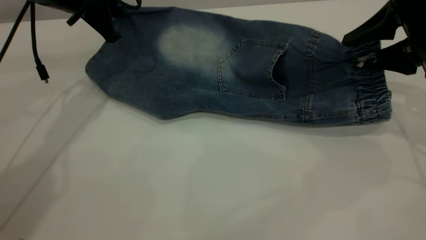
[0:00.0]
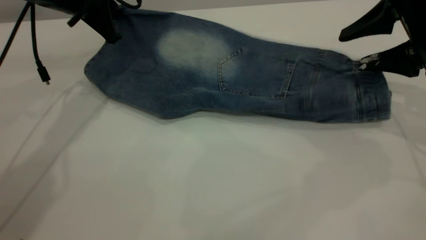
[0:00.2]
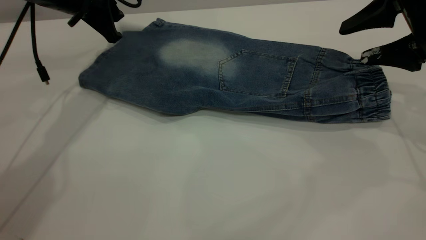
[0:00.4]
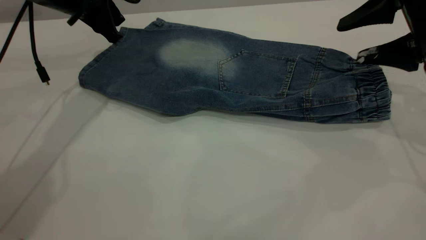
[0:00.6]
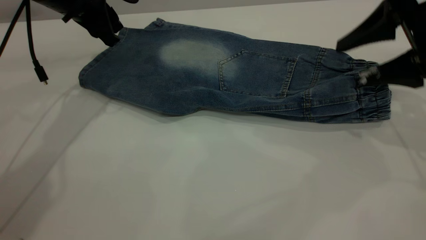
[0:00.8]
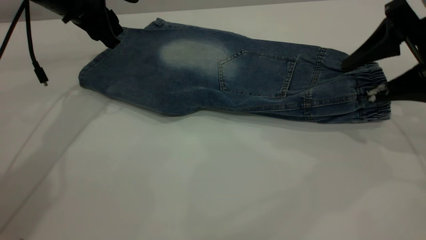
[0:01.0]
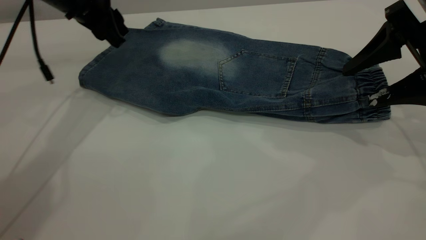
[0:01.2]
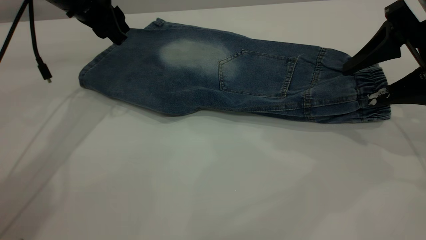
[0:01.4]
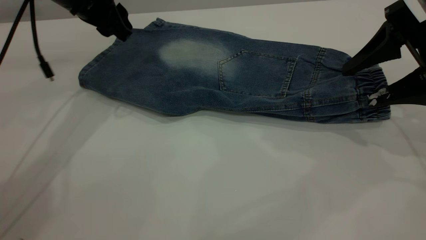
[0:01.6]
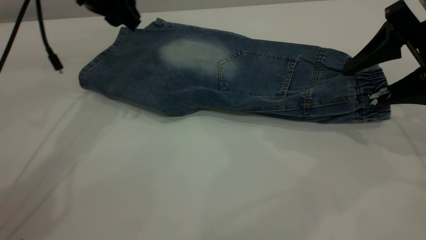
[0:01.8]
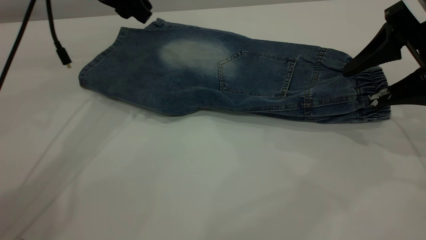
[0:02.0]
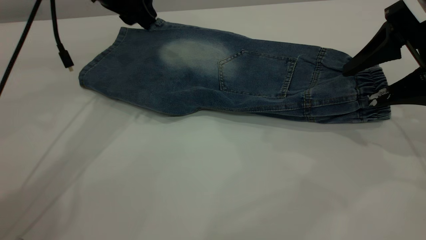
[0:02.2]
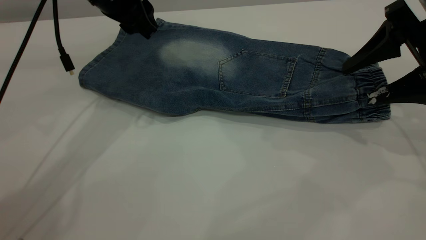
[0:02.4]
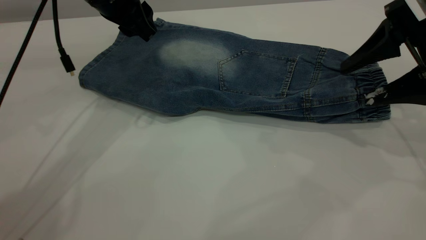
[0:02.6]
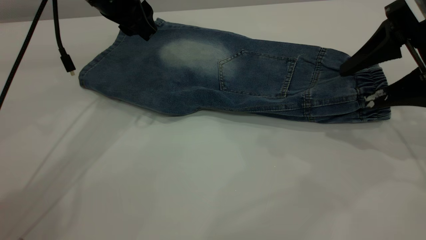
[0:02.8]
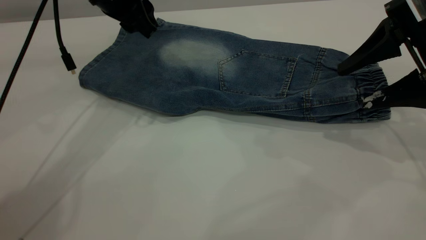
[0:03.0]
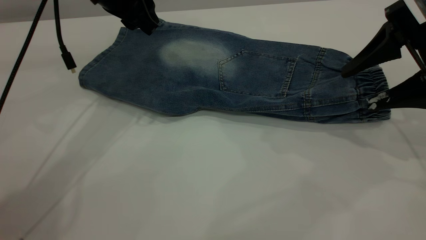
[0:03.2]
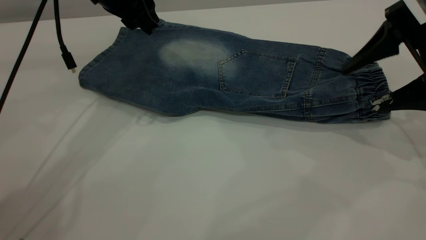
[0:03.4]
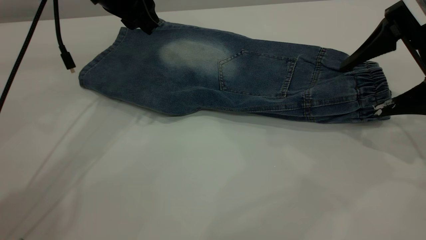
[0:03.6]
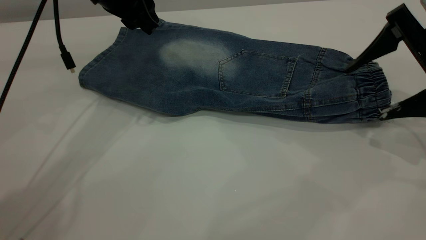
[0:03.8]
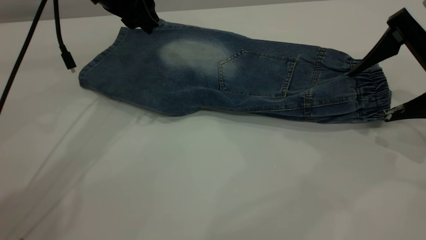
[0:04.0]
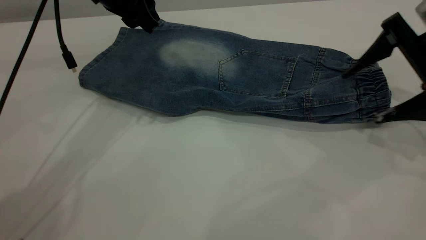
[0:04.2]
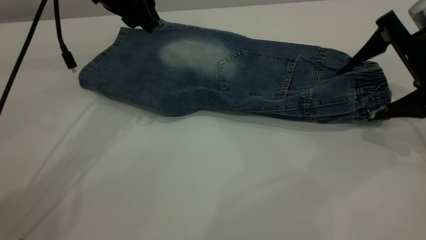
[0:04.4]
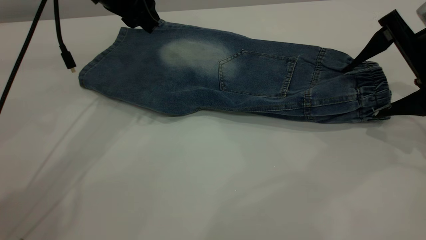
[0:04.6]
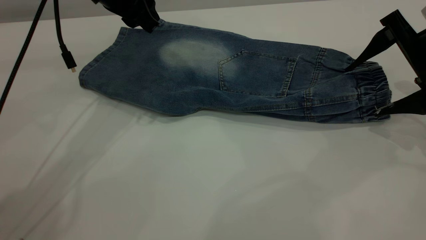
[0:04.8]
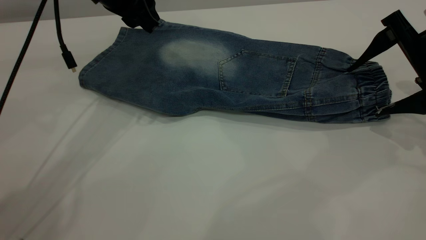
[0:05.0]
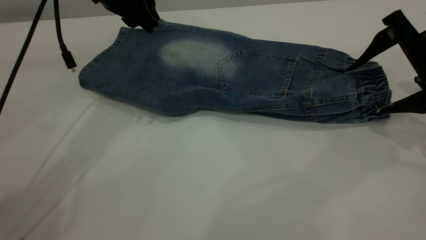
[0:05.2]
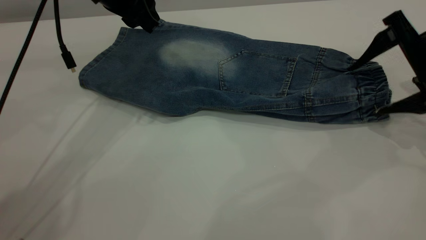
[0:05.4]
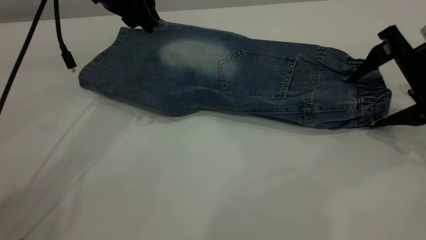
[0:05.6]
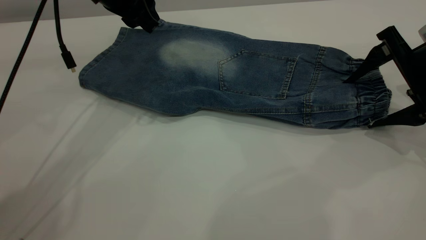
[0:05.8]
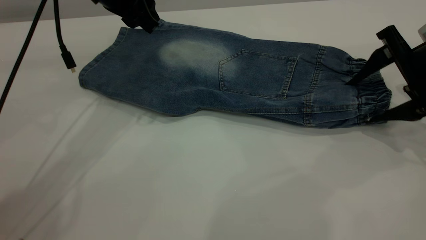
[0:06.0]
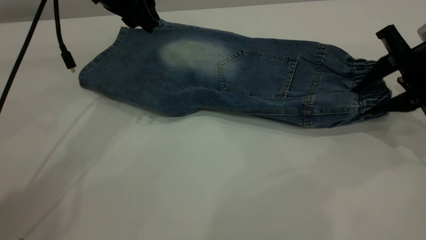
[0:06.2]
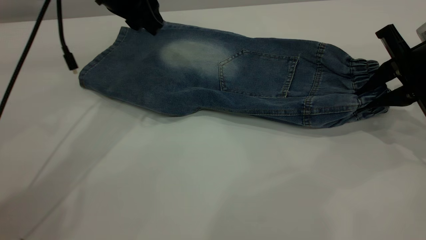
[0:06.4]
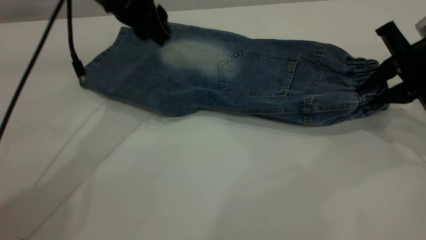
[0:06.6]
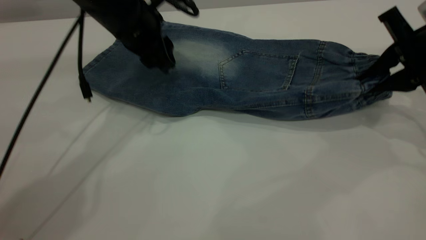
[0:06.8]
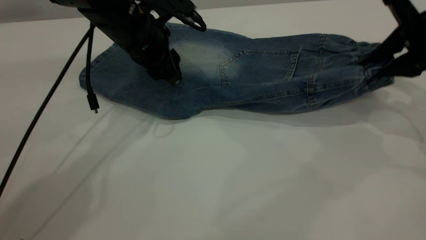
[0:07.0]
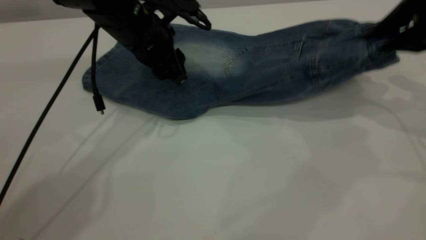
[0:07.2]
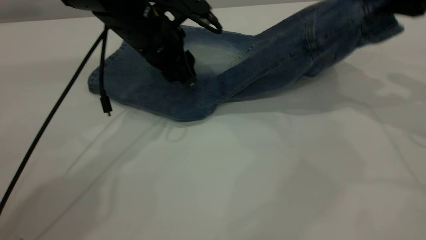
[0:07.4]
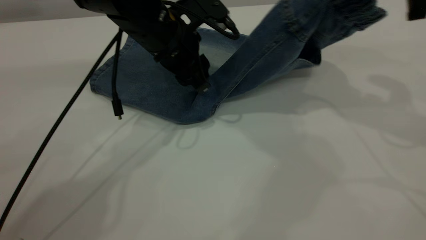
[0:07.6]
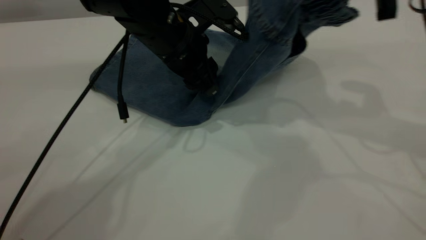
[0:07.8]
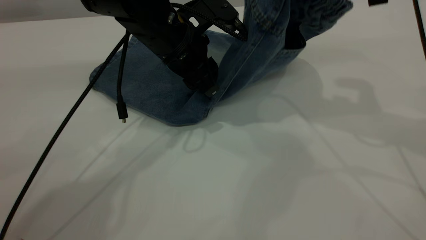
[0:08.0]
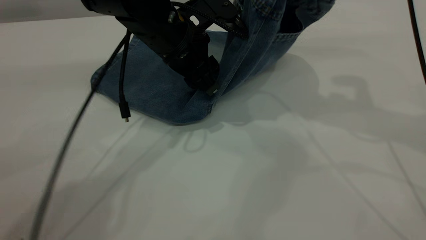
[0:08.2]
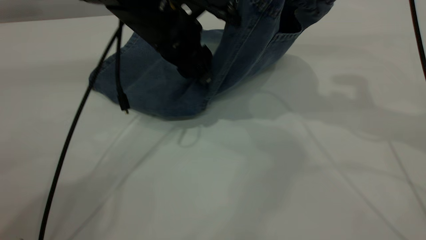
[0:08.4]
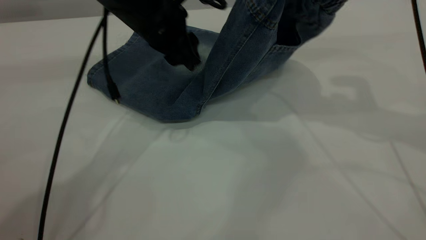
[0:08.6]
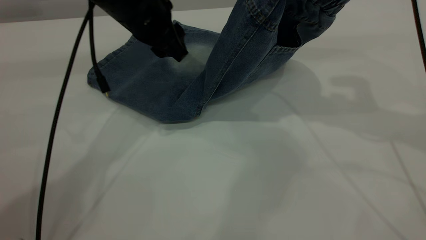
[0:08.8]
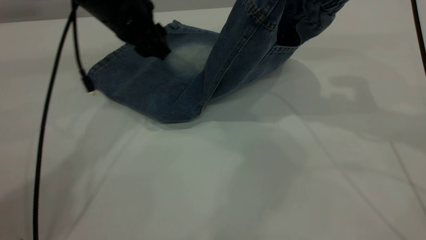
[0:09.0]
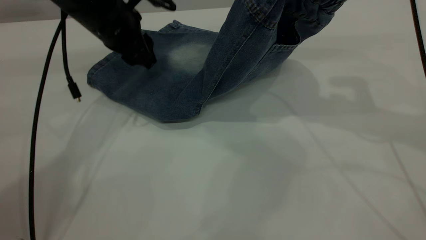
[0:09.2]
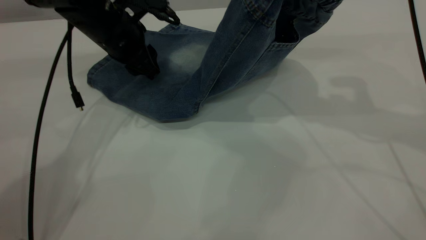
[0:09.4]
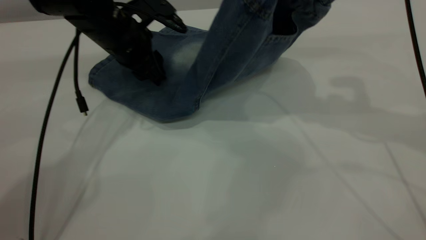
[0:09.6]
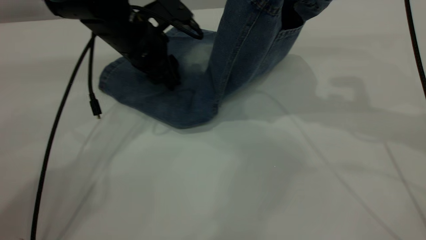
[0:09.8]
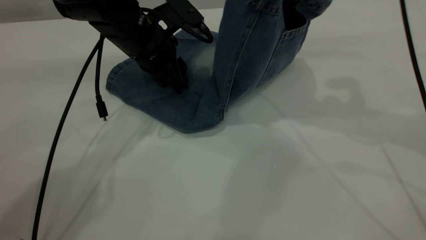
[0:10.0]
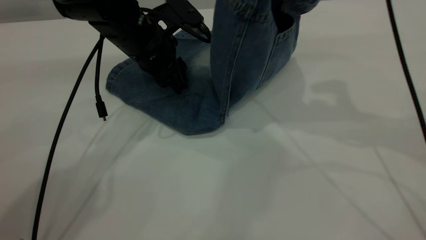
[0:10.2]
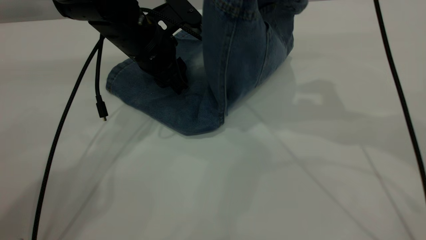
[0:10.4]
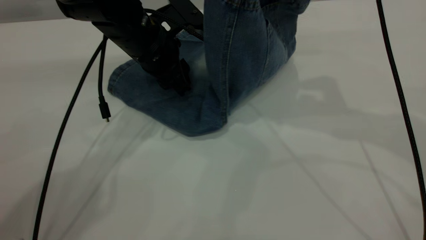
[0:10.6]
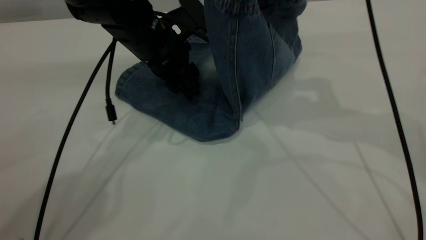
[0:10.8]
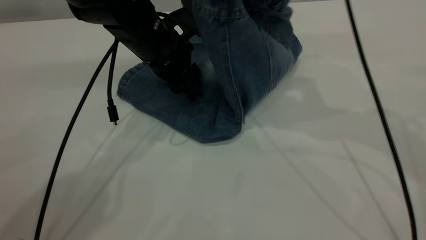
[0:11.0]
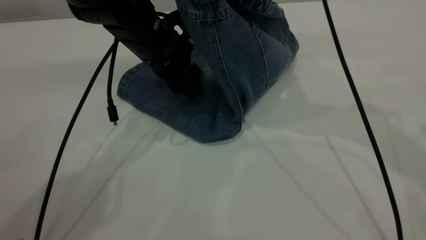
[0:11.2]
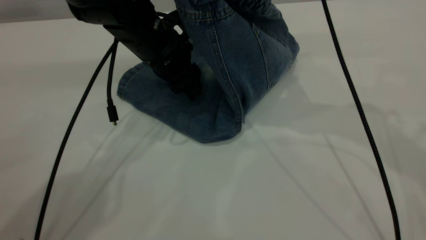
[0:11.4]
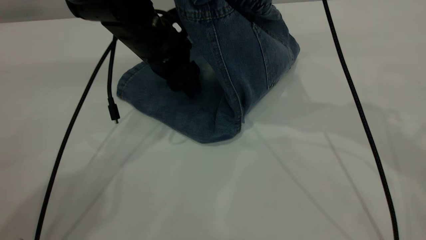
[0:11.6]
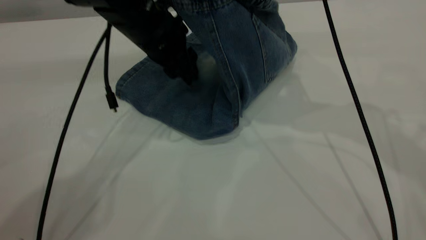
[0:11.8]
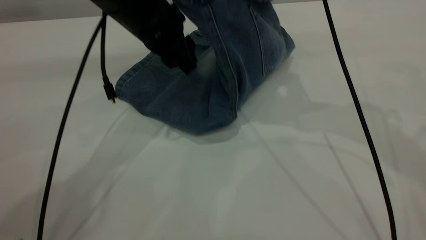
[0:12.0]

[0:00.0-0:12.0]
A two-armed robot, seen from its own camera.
0:00.0 to 0:01.6: The left gripper opens.
0:01.6 to 0:03.0: The grippers make only small movements.
0:03.0 to 0:04.4: The grippers stay close to where they were, moving slightly.
0:04.4 to 0:06.0: The right gripper closes.
0:06.0 to 0:07.6: The left gripper shifts about 10 cm to the right and downward. The right gripper moves upward and to the left, about 15 cm, and closes up.
0:07.6 to 0:09.0: The left gripper is displaced to the left by about 10 cm.
0:09.0 to 0:10.4: The left gripper moves some 5 cm.
0:10.4 to 0:12.0: The right gripper ends up some 5 cm from where it was; the left gripper shifts approximately 5 cm upward.

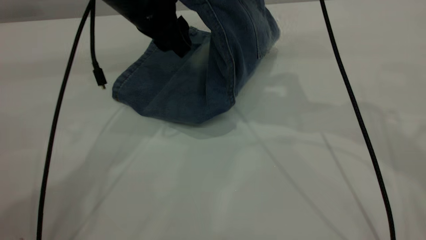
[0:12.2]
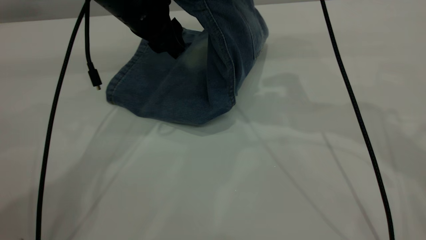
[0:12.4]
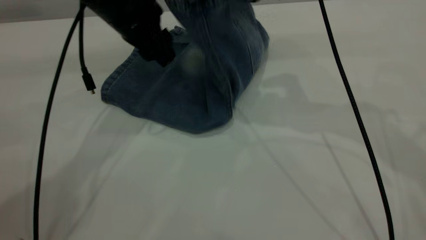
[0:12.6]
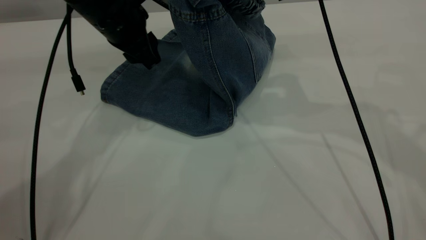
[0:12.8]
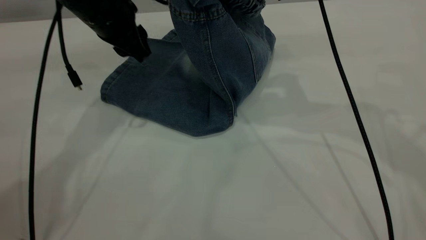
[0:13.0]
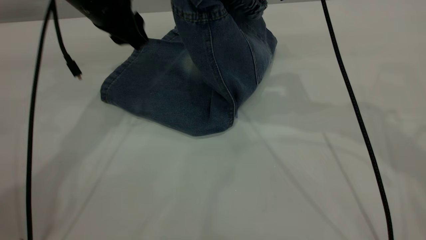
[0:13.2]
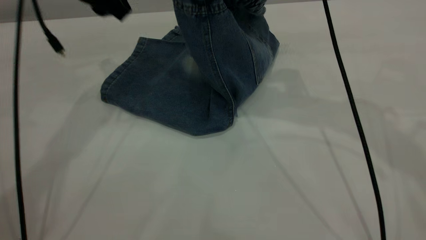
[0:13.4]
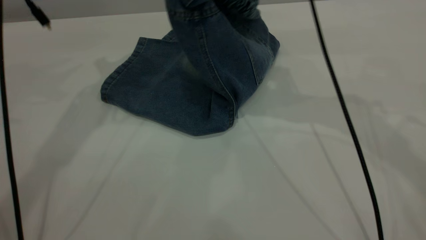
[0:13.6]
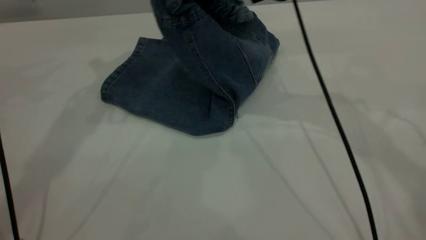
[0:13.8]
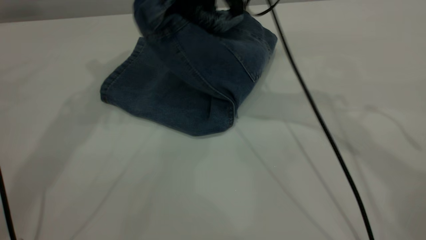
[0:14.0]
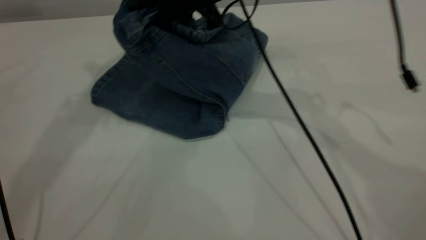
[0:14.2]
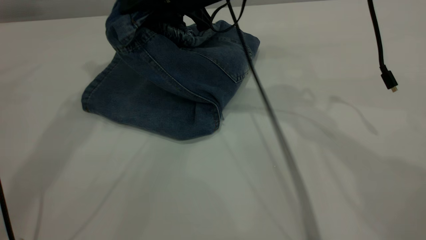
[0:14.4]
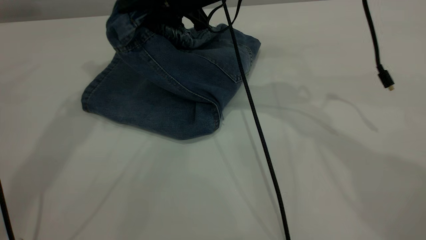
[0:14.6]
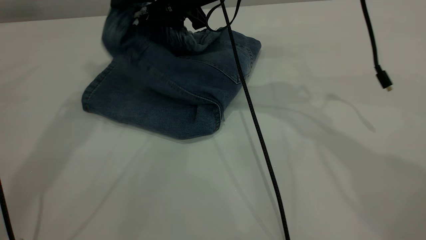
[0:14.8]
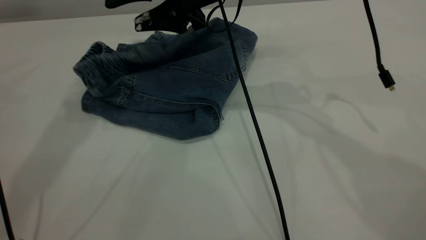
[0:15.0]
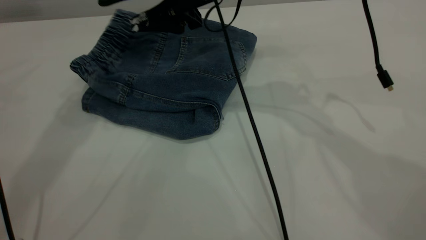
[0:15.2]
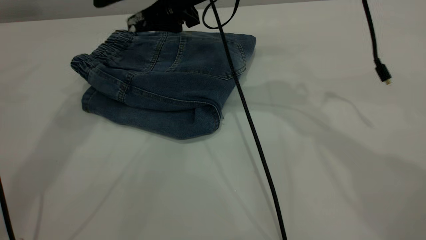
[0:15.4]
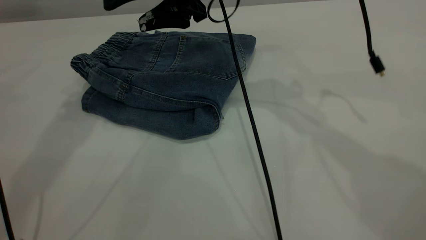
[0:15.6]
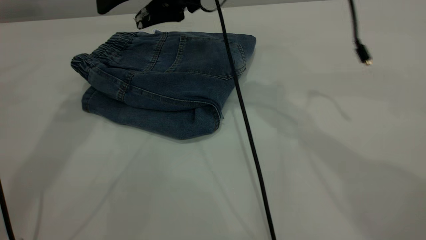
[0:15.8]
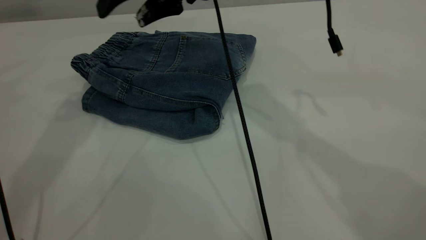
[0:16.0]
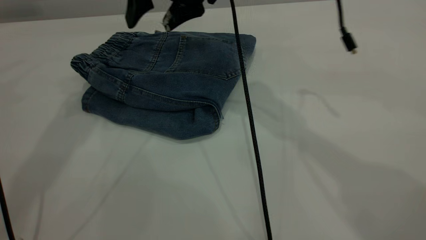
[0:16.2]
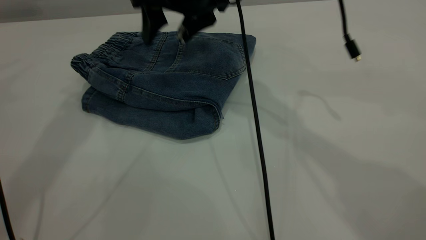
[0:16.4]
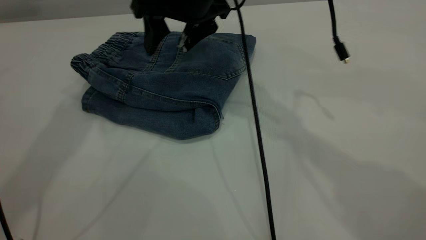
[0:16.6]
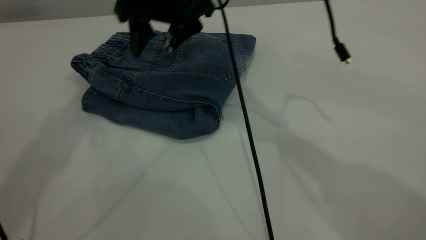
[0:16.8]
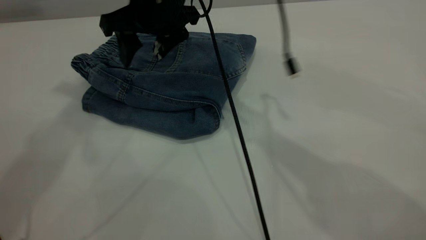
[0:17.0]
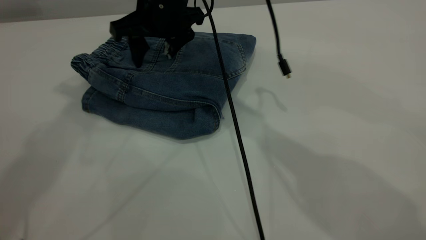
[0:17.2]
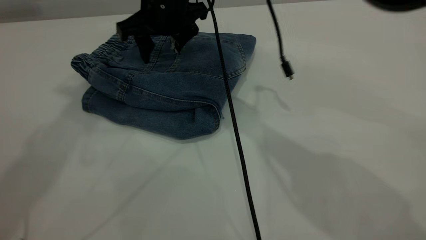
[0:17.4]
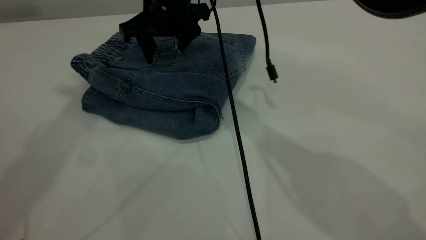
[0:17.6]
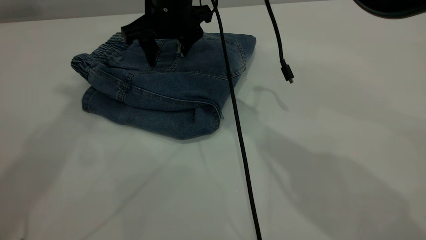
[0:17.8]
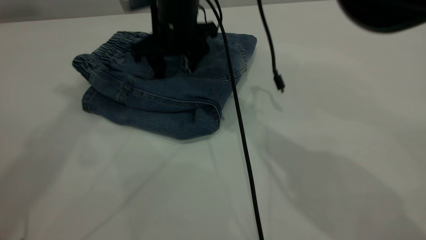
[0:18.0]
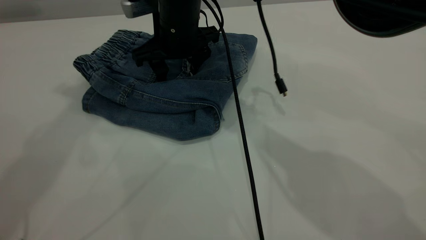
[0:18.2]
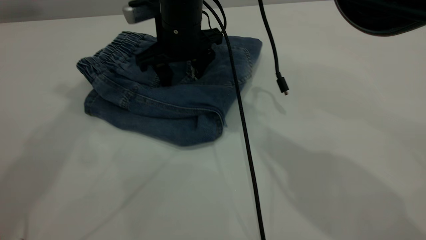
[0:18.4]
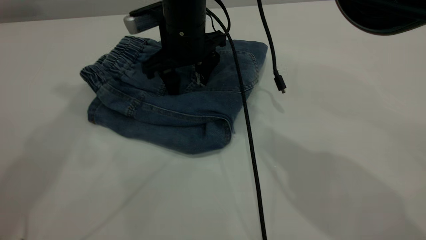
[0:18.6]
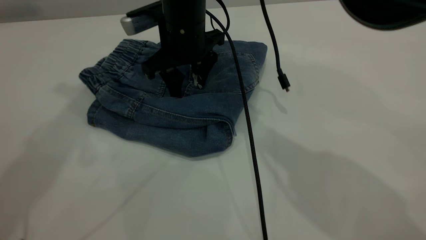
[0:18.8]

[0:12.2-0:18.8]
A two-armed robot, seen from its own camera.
Step, 0:12.2 to 0:15.8: Fold your pants from right to left.
0:12.2 to 0:13.8: The left gripper is displaced upward and to the left by roughly 15 cm.
0:13.8 to 0:15.4: The right gripper heads to the left, covering about 5 cm, and opens.
0:15.4 to 0:17.2: The right gripper moves to the left, about 5 cm; the left gripper travels upward and backward by roughly 15 cm.
